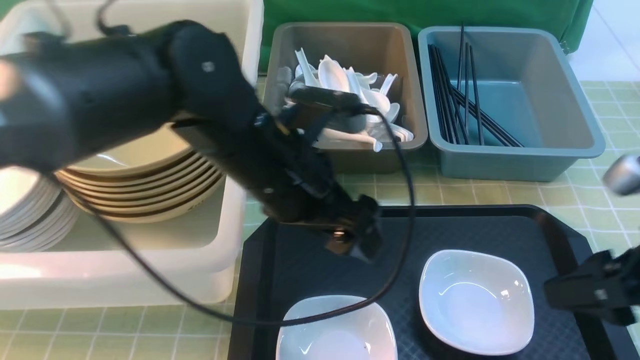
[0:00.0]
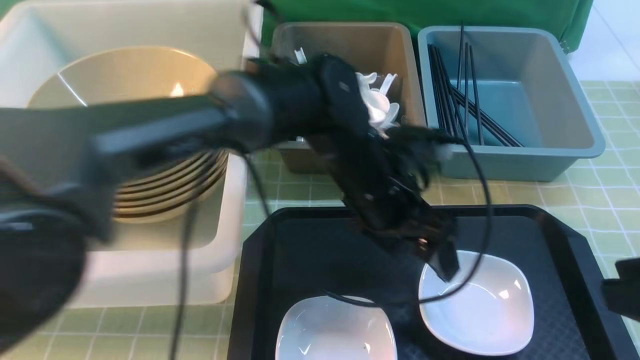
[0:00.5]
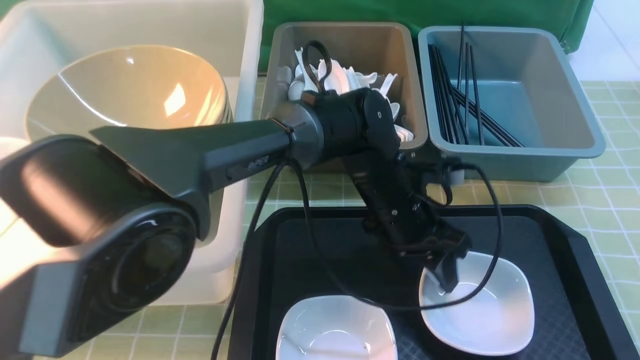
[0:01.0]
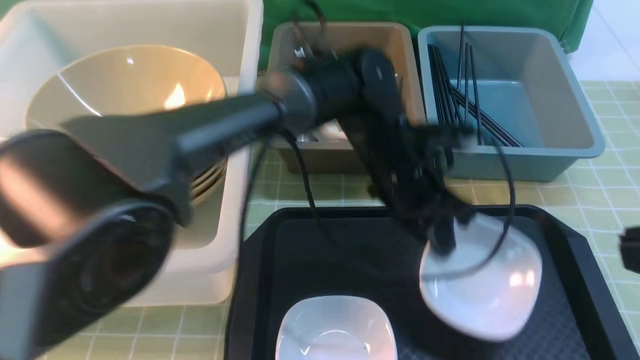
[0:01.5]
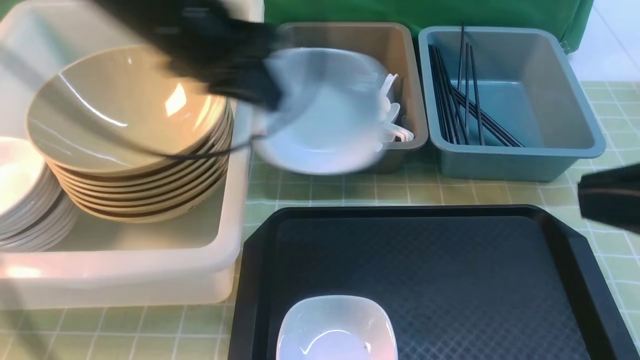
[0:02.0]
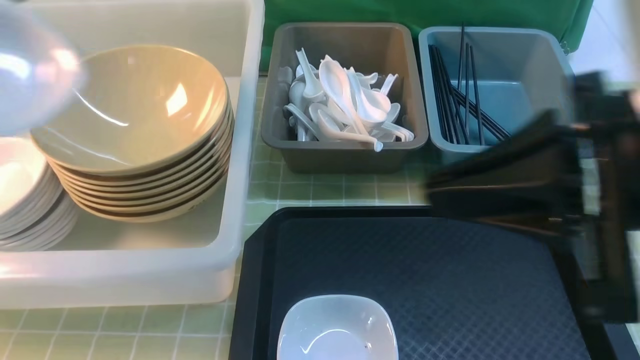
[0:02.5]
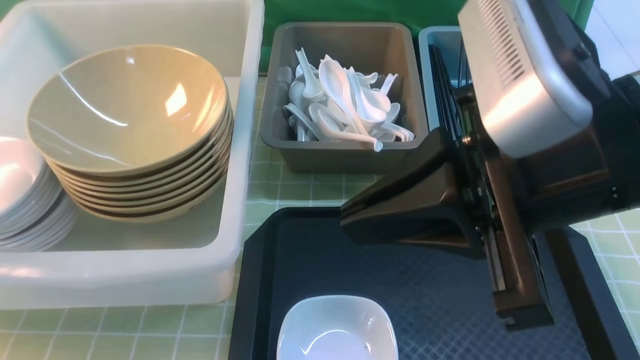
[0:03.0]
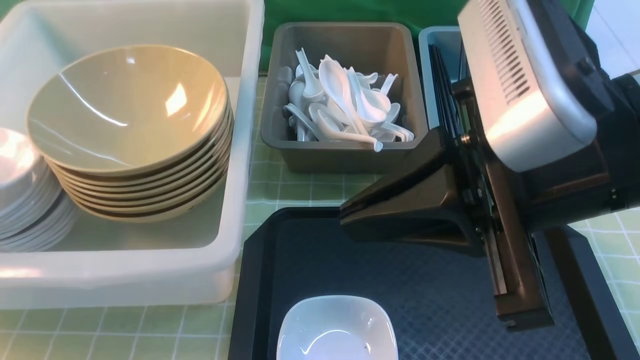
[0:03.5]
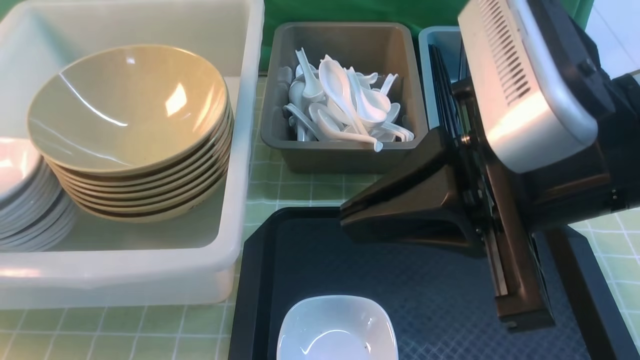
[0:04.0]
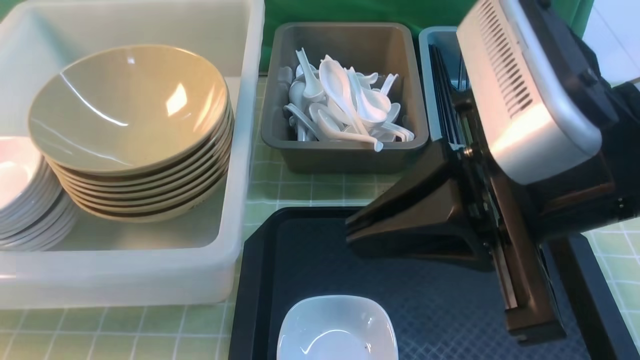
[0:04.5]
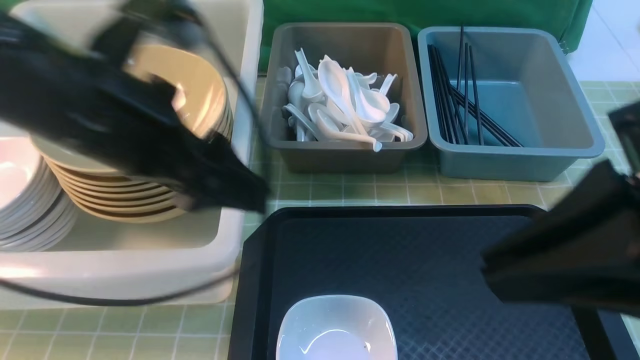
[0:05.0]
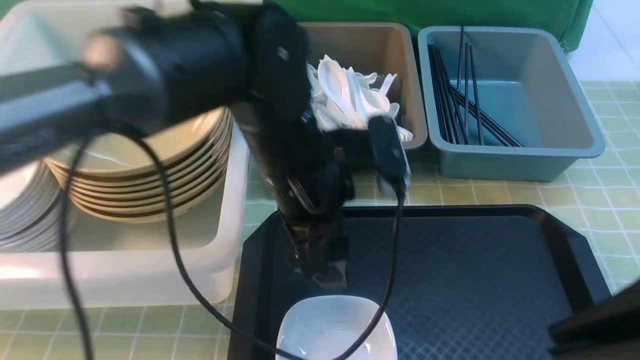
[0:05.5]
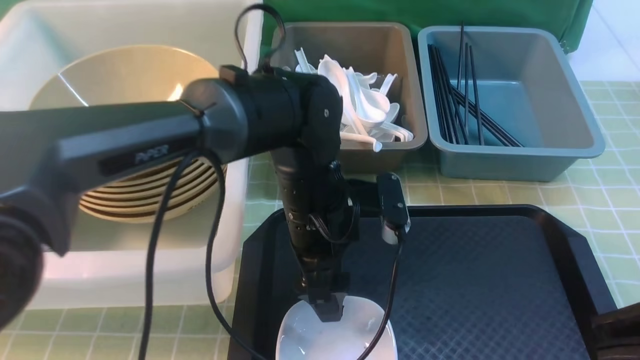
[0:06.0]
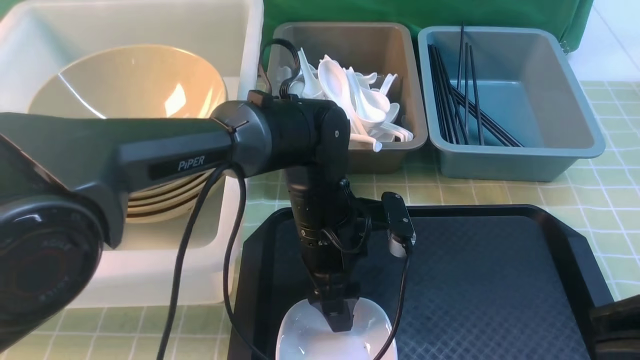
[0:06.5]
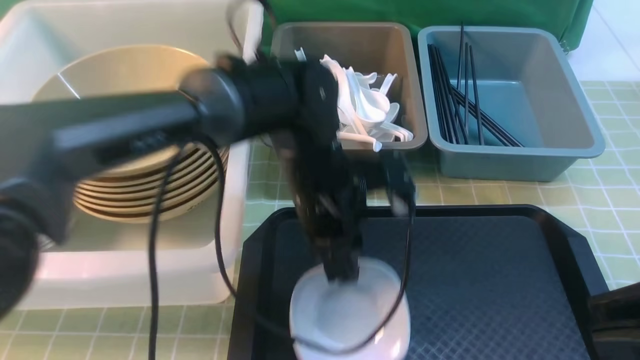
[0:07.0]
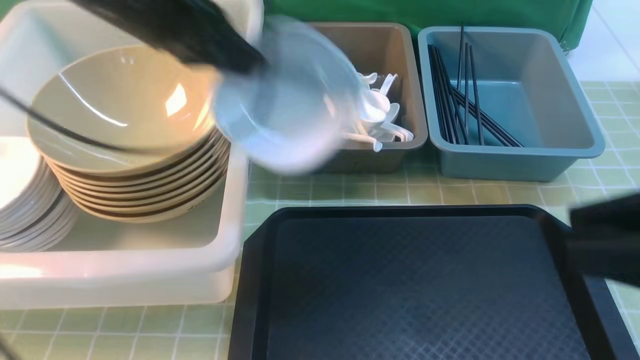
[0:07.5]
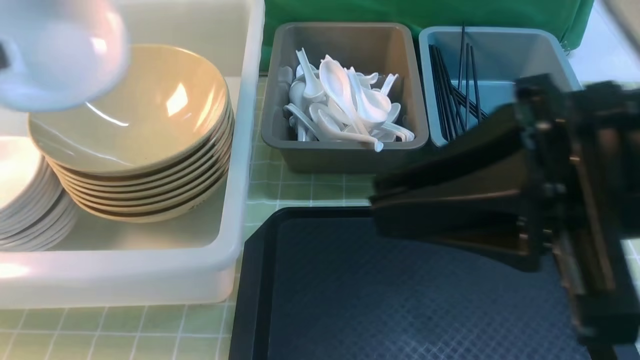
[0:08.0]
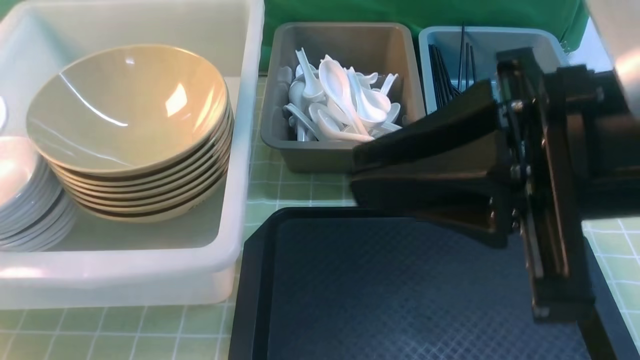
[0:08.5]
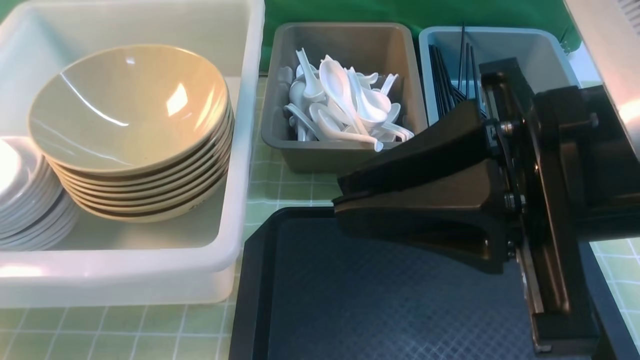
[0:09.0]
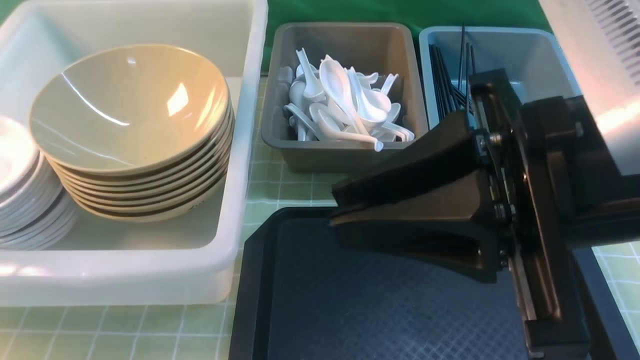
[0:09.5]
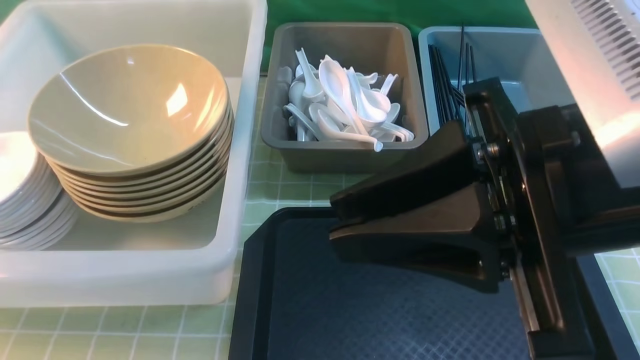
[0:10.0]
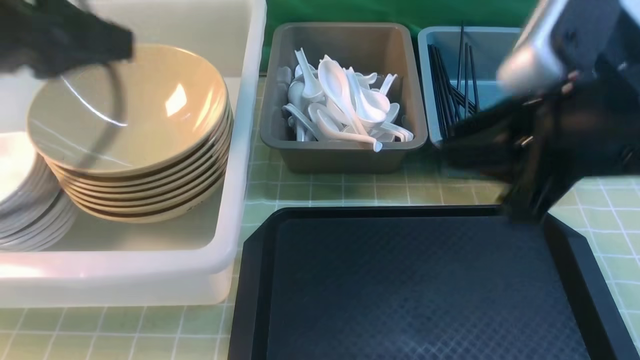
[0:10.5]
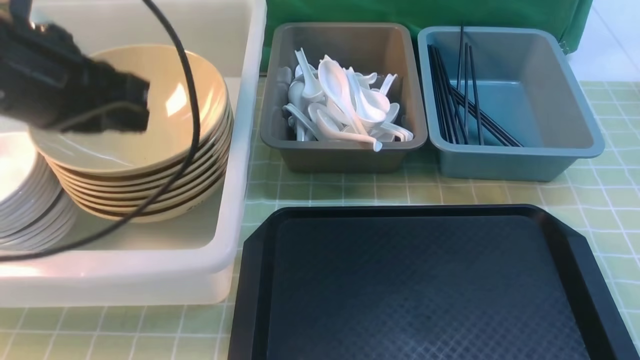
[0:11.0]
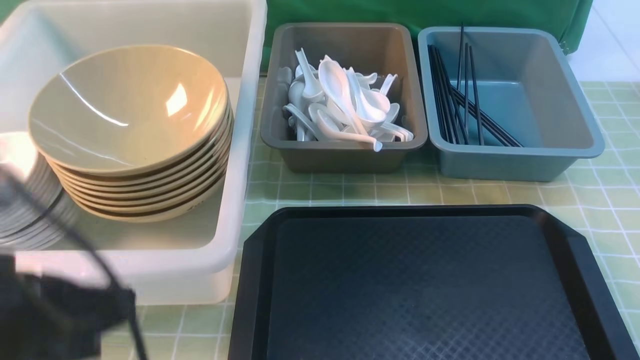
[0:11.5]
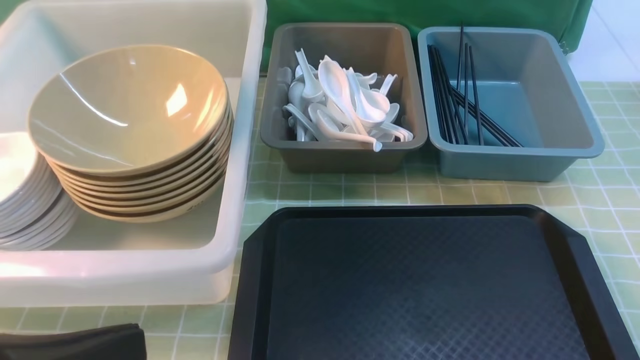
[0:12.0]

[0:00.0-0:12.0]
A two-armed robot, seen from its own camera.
Task of the whole recording: on green table put chopsticks spoon bowls plates into blue grey white boxes.
Step, 0:00.0 to 0:01.5: use the left arm to grab the plate.
Step, 0:02.0 to 0:04.5: use the left arm to put the plate into the large storage box on the left.
Step, 0:05.0 to 0:07.0: use the left arm to grab the plate.
Step, 0:07.5 to 0:10.0: use the left arm to put the plate into the large storage box on the left.
0:00.0 to 0:02.0: The left gripper goes approximately 15 cm to the left, upward and forward, and closes up, while the right gripper goes approximately 15 cm upward and backward, and closes up.
0:02.0 to 0:04.0: The right gripper heads to the left and forward, covering approximately 10 cm. The left gripper heads to the left, covering roughly 25 cm, and opens its fingers.
0:04.0 to 0:06.0: The right gripper is displaced backward and to the right by about 15 cm. Meanwhile the left gripper is displaced to the right by roughly 40 cm.
0:06.0 to 0:08.0: The left gripper goes some 40 cm to the left and upward, and closes. Meanwhile the right gripper moves forward and to the left, about 10 cm.
0:08.0 to 0:10.0: The left gripper goes downward and returns, approximately 10 cm each way, and opens up.
0:10.0 to 0:12.0: The right gripper moves to the right, backward and downward, about 20 cm. Meanwhile the left gripper heads backward and to the right, covering roughly 25 cm, and closes its fingers.

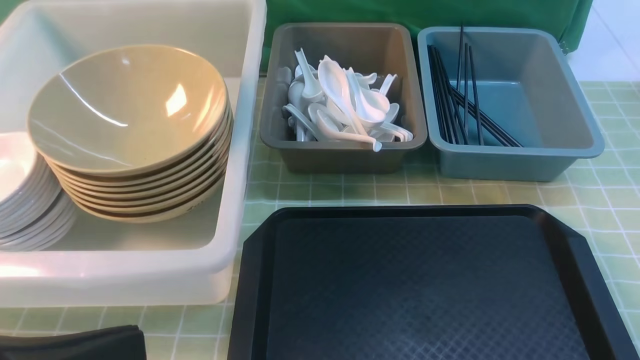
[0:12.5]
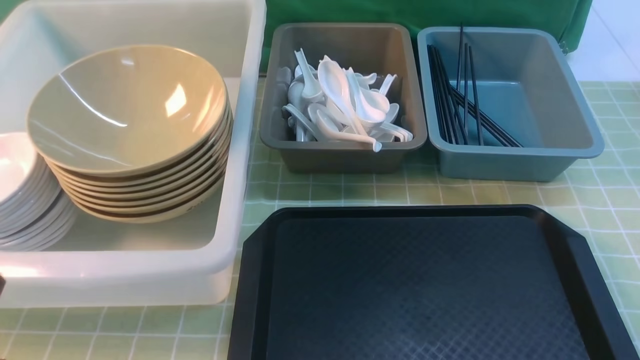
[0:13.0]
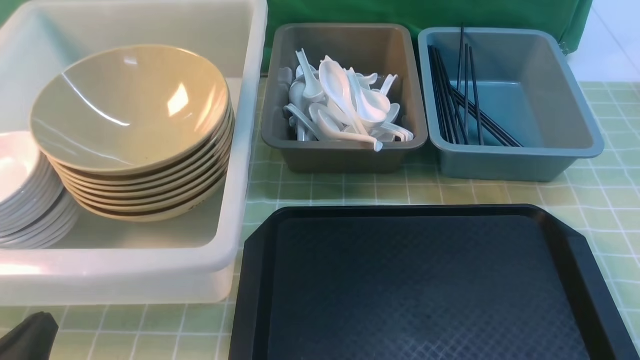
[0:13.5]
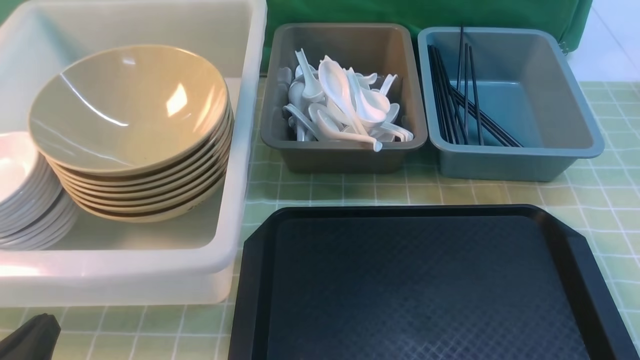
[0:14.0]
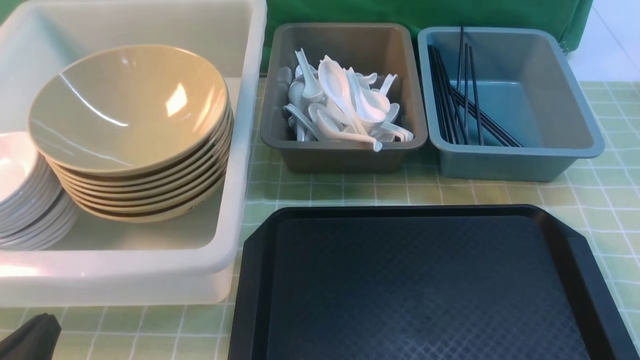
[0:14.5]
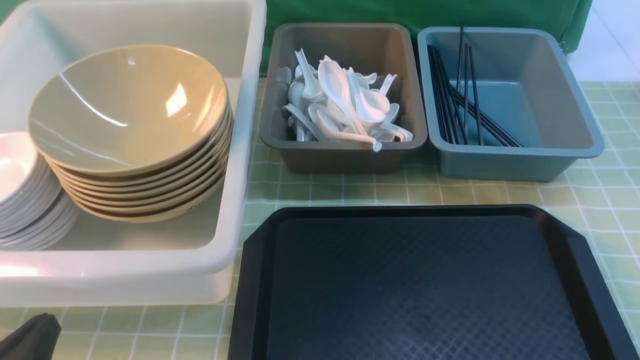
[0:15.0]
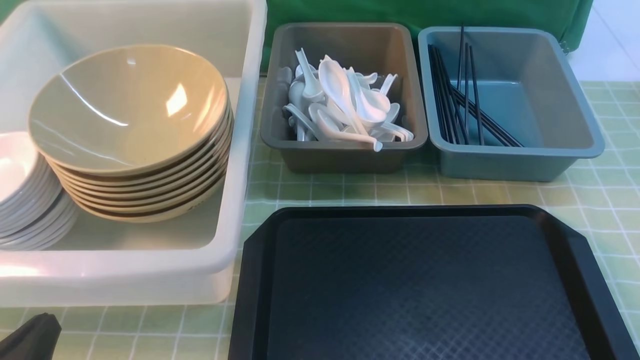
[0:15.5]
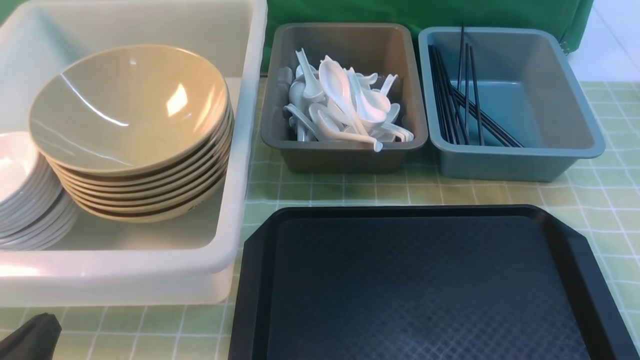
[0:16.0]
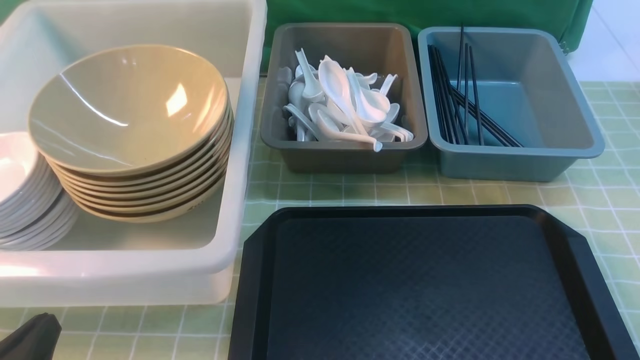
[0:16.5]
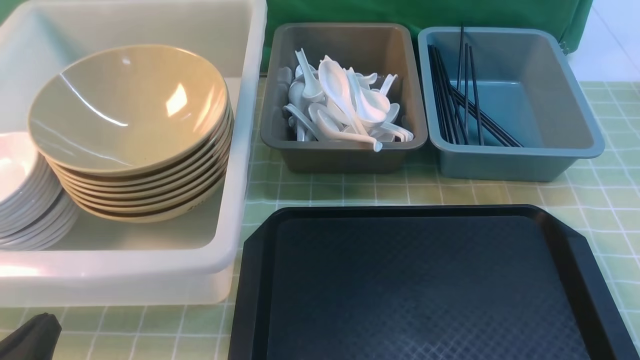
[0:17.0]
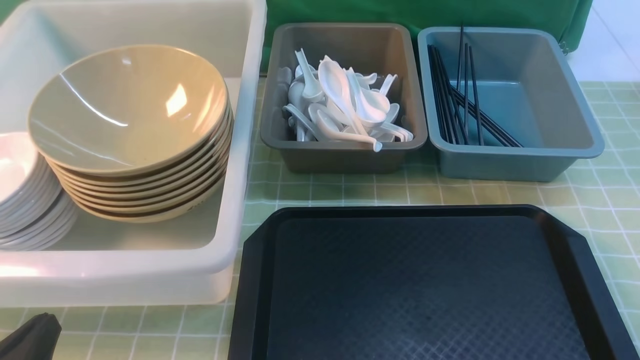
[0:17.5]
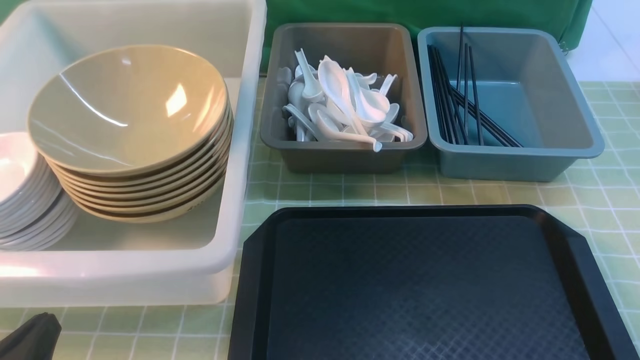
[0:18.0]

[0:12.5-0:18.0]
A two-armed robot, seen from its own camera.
Task of the whole recording: on green table put chopsticks spoon bowls plates into blue grey white boxes.
0:12.5 to 0:14.5: The left gripper shifts some 15 cm downward.
0:16.0 to 0:18.0: Both grippers stay about where they are.

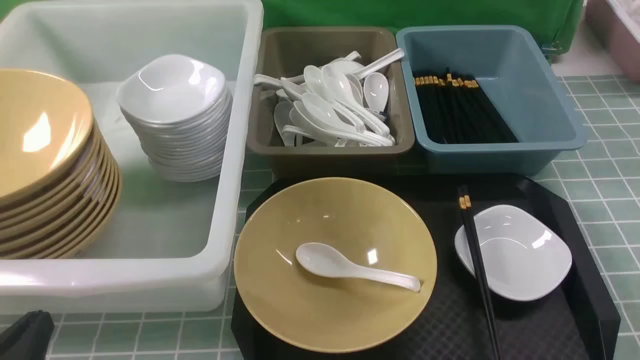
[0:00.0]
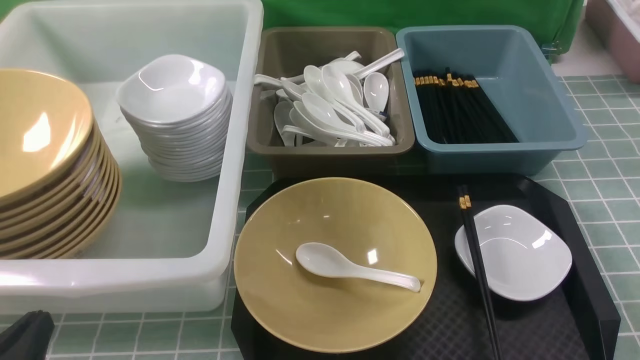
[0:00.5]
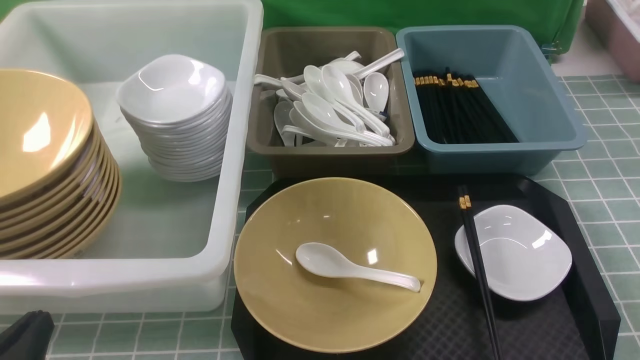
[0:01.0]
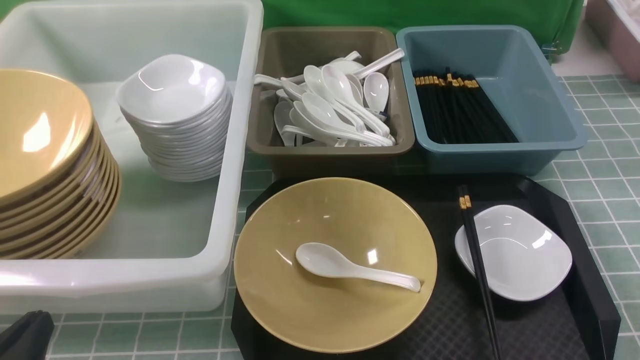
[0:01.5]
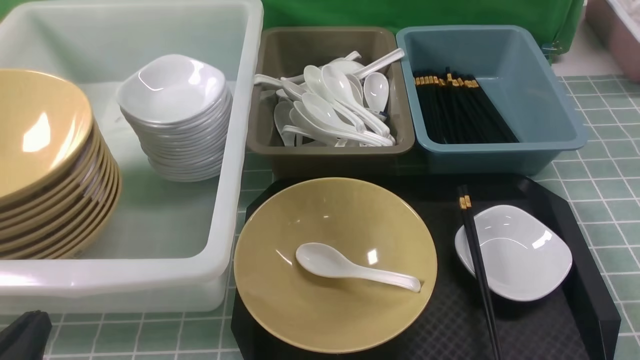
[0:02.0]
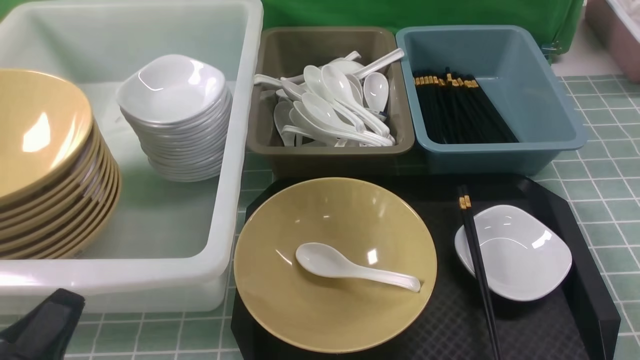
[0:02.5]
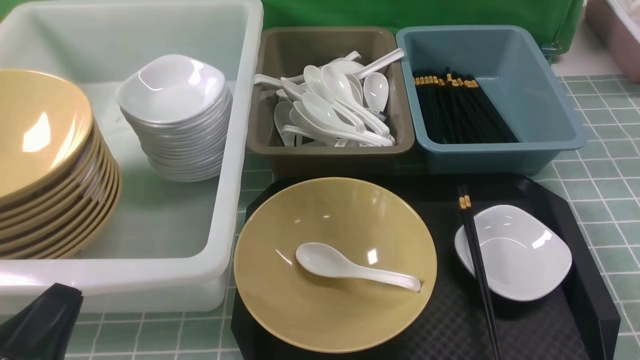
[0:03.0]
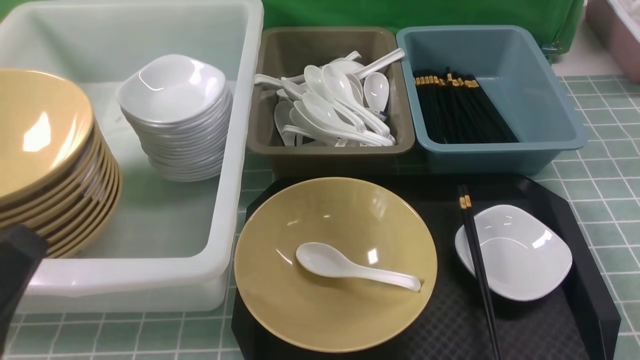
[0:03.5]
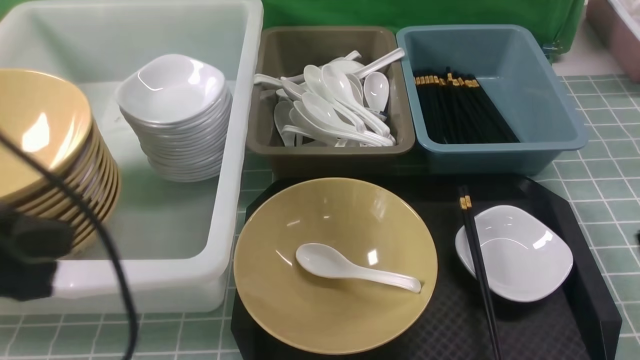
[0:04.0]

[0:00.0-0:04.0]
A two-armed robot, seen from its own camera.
Task of the whole recording: on blue table put chopsticks spoon bowls plates into blue grey white boxes.
0:02.0 to 0:04.0: The left gripper heads upward, covering about 20 cm.
